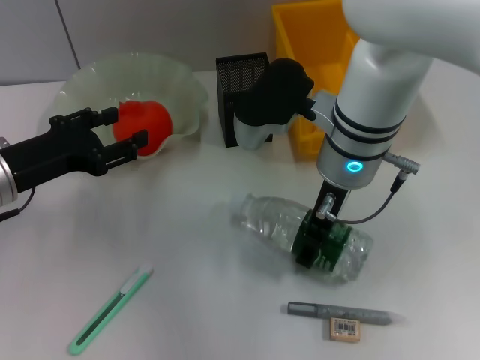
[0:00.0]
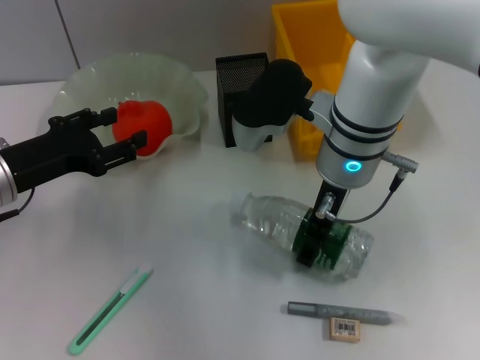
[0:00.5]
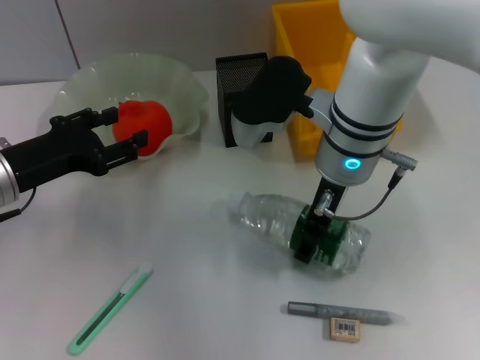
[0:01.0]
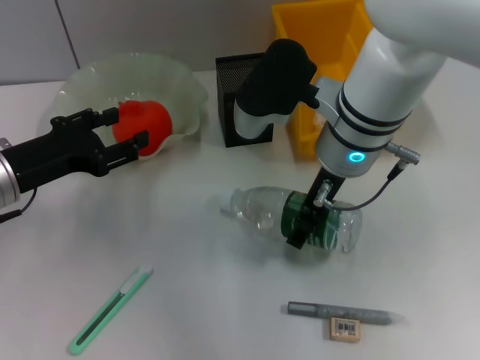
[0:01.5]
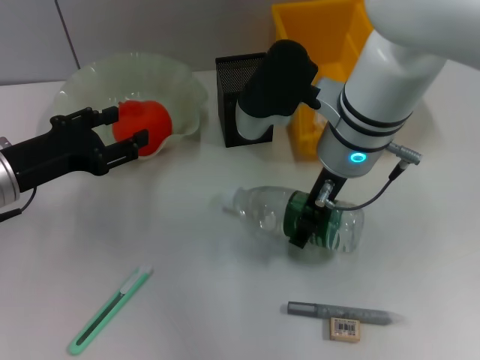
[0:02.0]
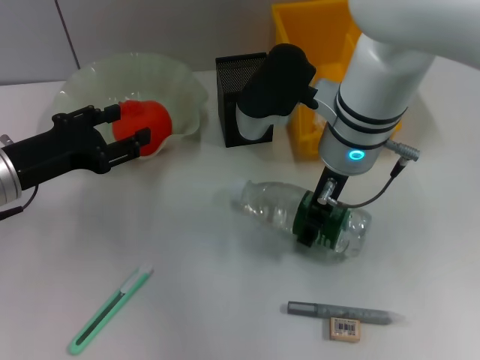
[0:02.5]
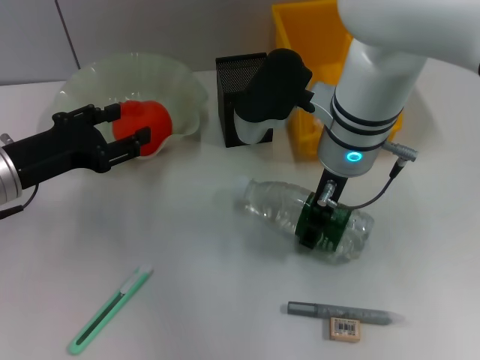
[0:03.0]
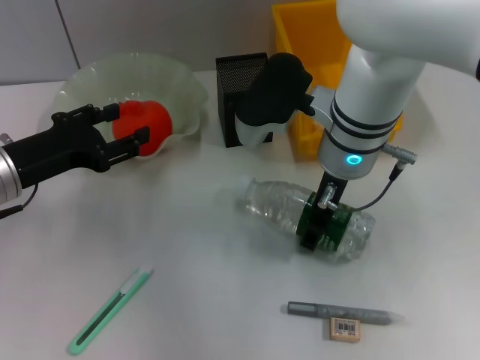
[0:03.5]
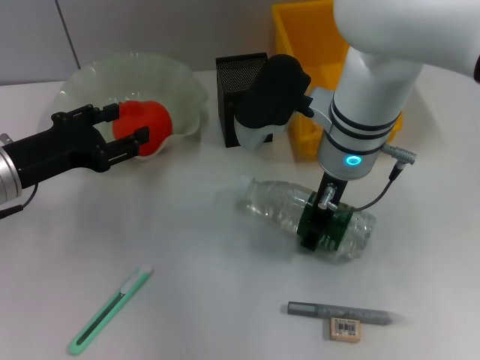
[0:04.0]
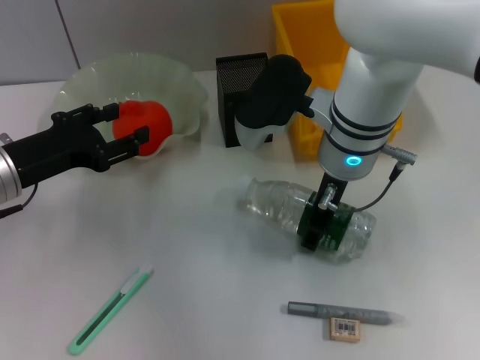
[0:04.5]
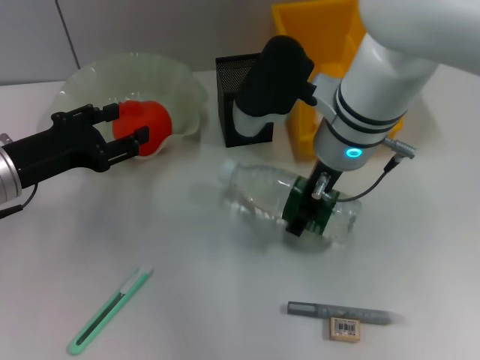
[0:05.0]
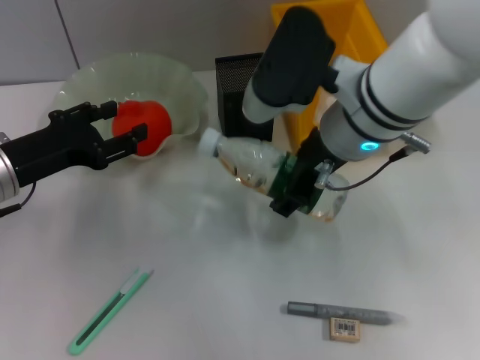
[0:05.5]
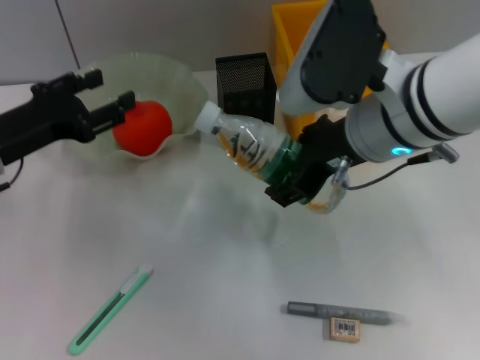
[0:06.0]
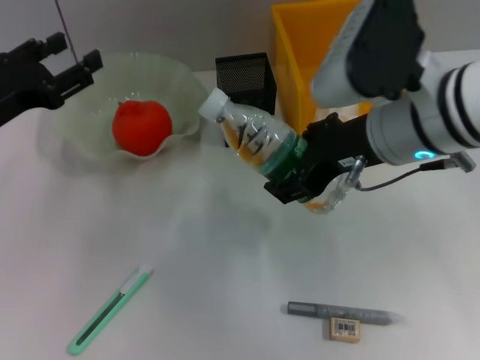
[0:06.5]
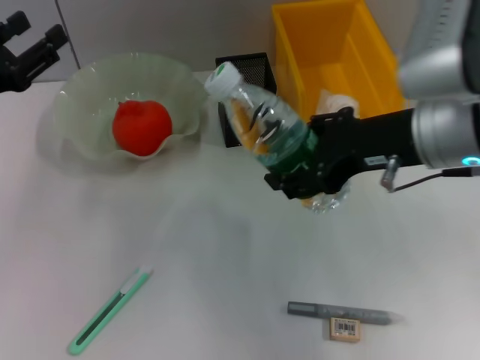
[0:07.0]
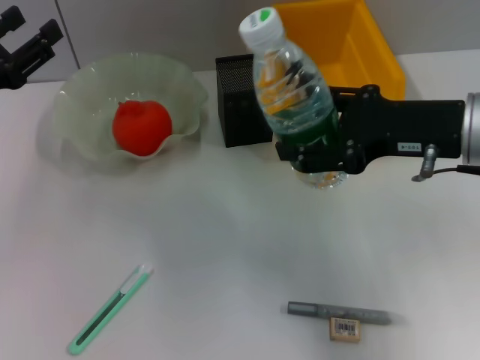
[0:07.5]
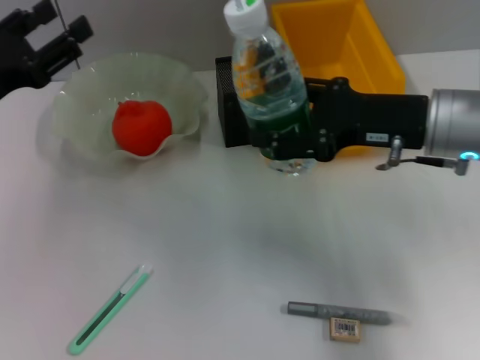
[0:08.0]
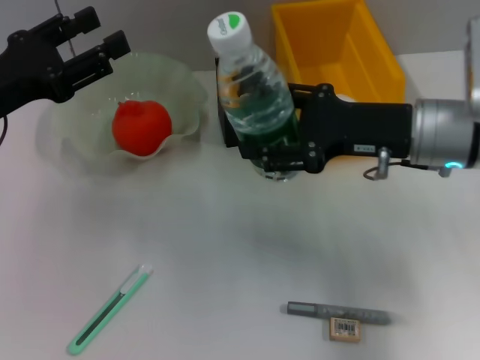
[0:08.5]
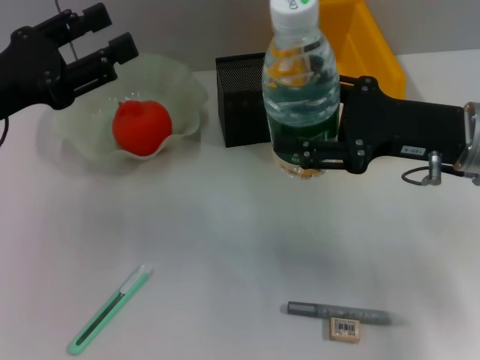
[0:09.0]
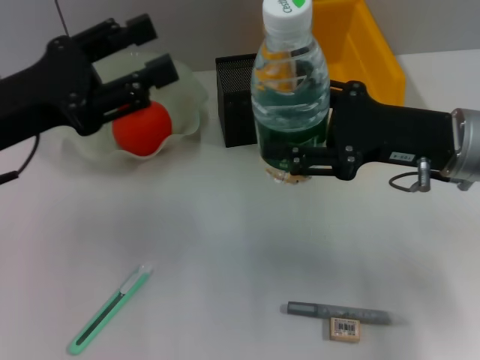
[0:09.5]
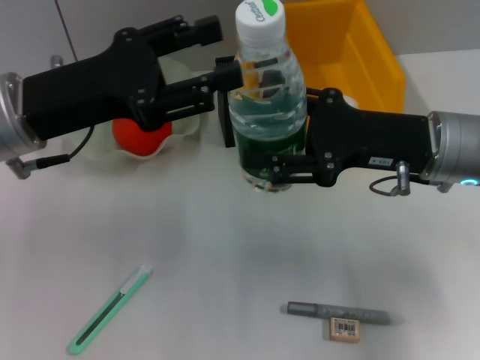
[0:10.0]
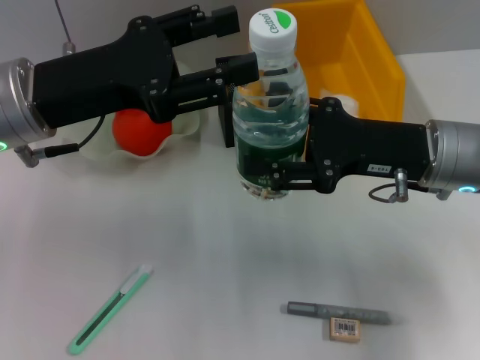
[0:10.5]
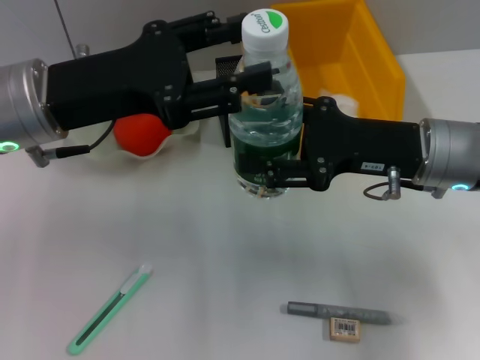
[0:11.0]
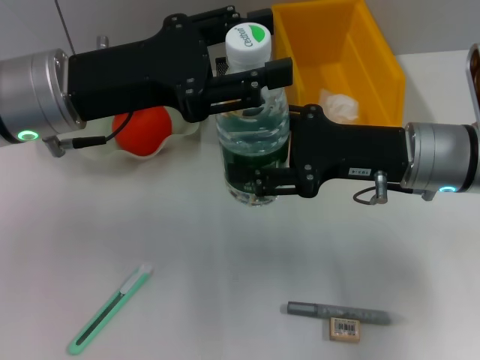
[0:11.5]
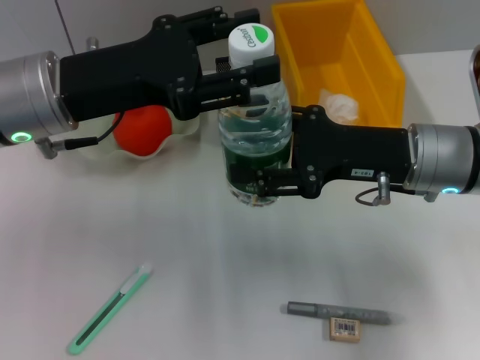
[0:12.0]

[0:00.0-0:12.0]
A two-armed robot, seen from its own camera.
Step, 0:00.0 to 0:04.0: Grab the water bottle with the right hand.
0:00.0 to 0:04.0: The grippers make only small movements.
0:04.0 to 0:06.0: The right gripper travels upward and backward by roughly 10 cm.
0:06.0 to 0:08.0: The right gripper goes about 10 cm to the right.
0:08.0 to 0:10.0: The left gripper travels to the right by about 10 cm.
0:10.0 to 0:12.0: The grippers make only small movements.

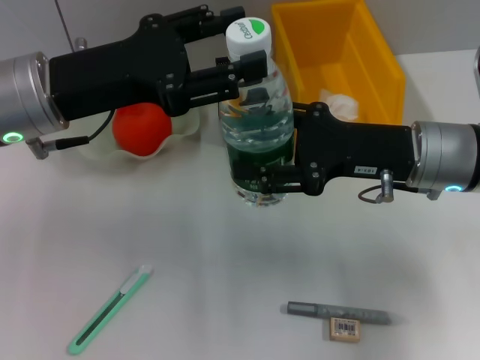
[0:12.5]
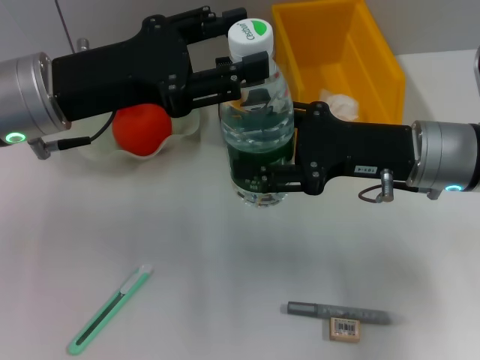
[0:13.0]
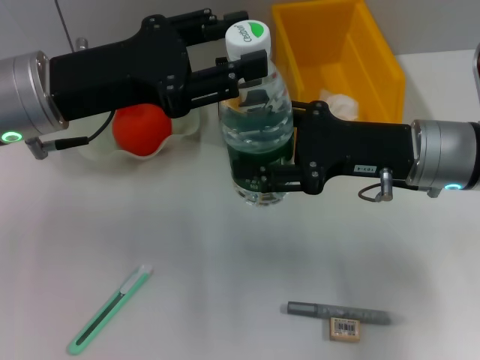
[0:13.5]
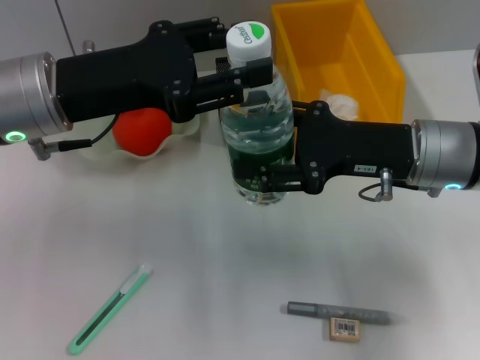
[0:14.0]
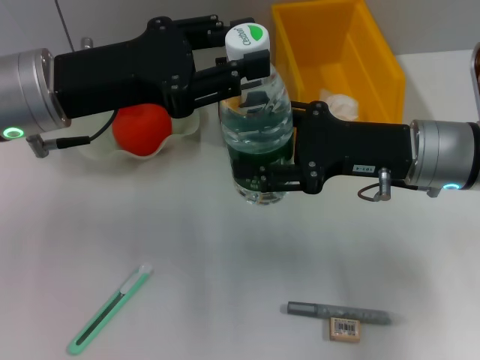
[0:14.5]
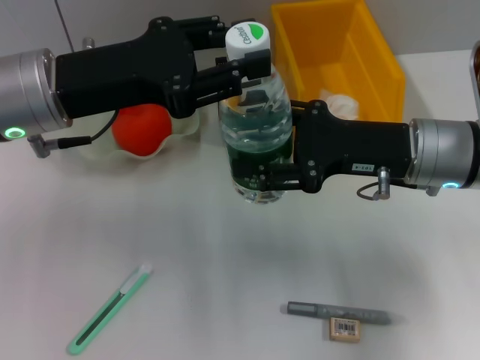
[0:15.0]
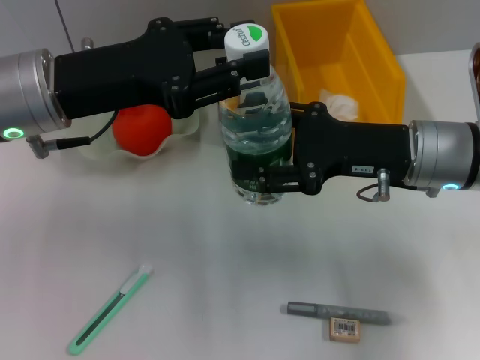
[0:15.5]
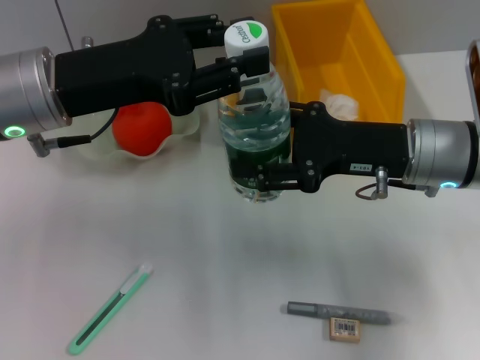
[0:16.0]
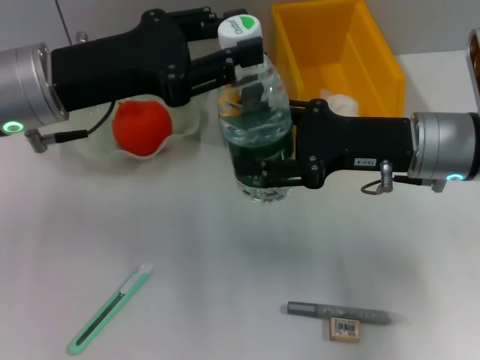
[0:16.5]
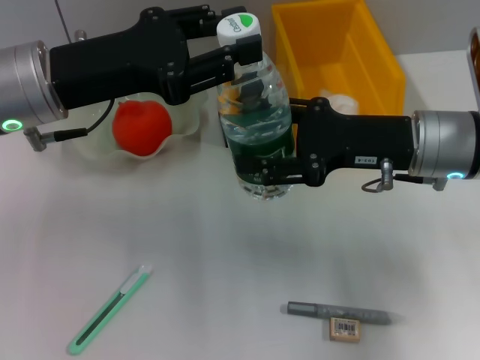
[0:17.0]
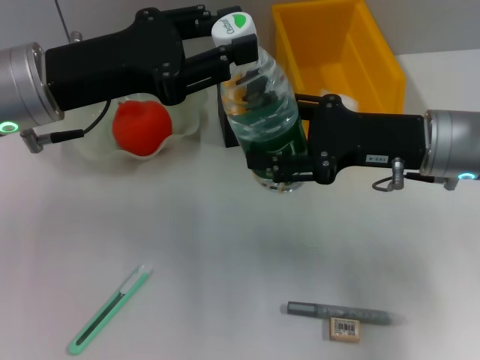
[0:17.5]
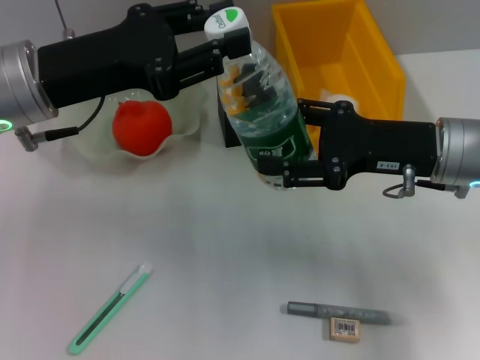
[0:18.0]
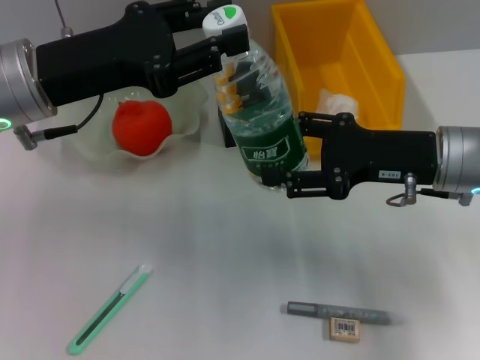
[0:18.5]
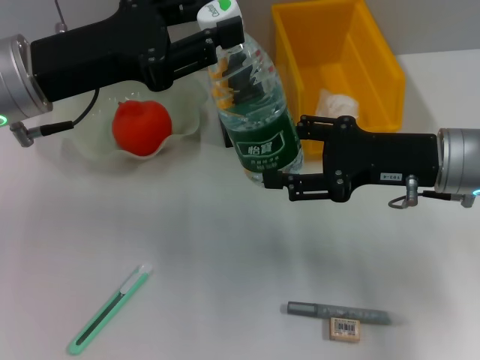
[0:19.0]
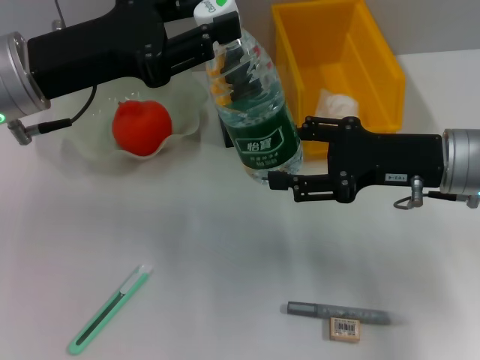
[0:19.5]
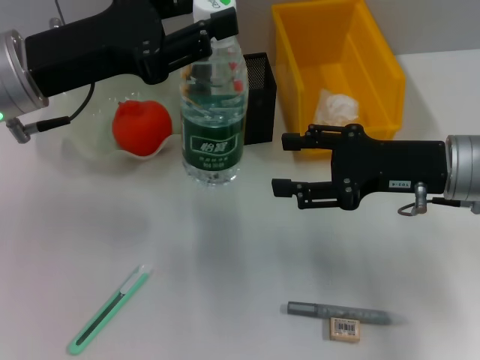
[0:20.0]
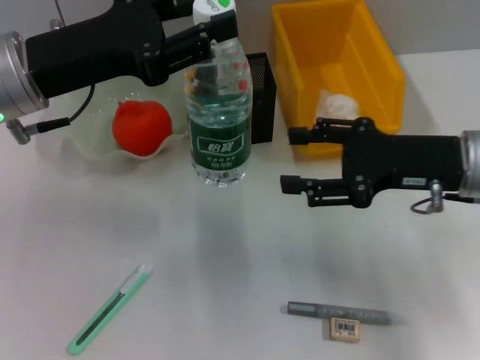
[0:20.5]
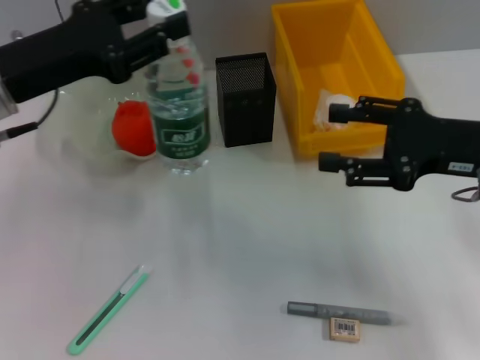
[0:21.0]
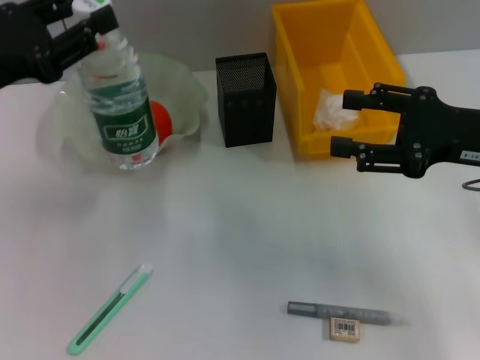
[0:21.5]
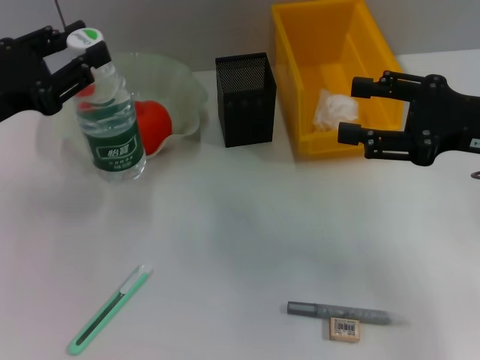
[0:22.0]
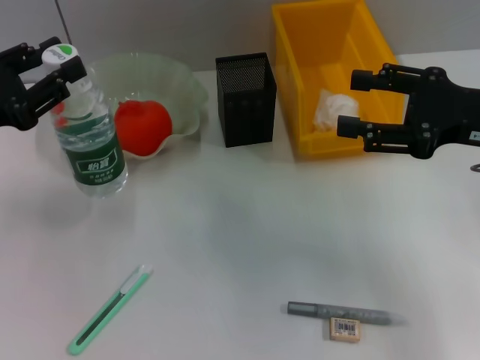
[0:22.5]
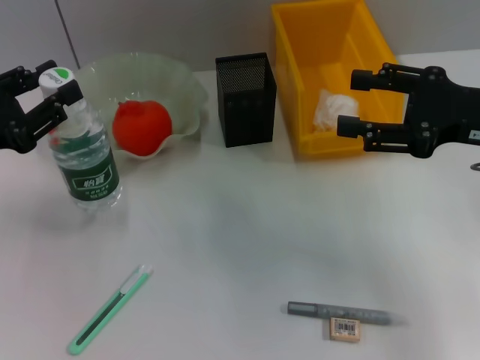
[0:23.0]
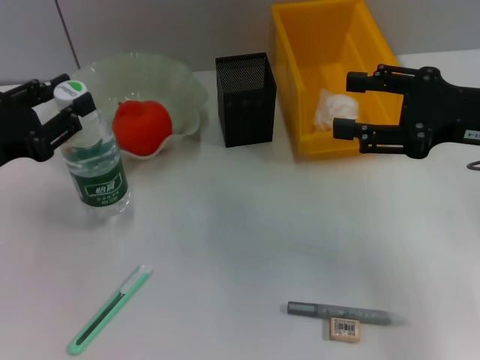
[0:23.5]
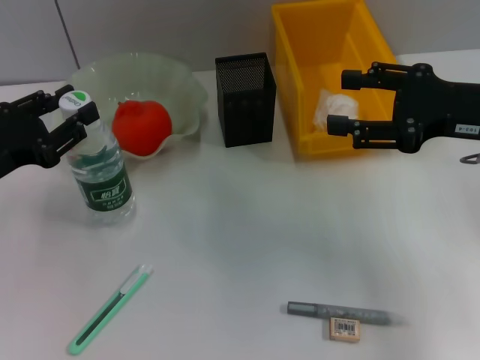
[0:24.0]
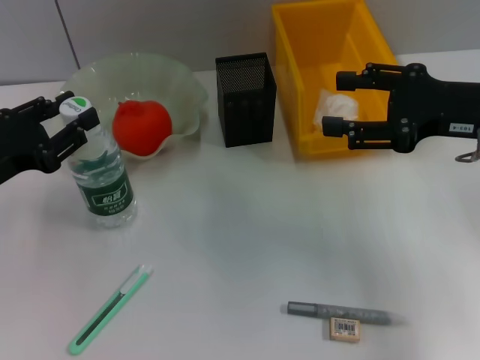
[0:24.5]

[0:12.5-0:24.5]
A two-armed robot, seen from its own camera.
Step, 0:12.5 to 0:20.5: Pass the water bottle from the right hand to the left hand.
0:12.5 to 0:16.5: Both grippers stay about where they are.
0:16.5 to 0:20.5: The grippers make only small movements.
0:20.5 to 0:22.5: The right gripper changes place by approximately 5 cm. Meanwhile the left gripper travels to the left and downward by approximately 10 cm.
0:22.5 to 0:24.5: There are only small adjustments of the grippers.

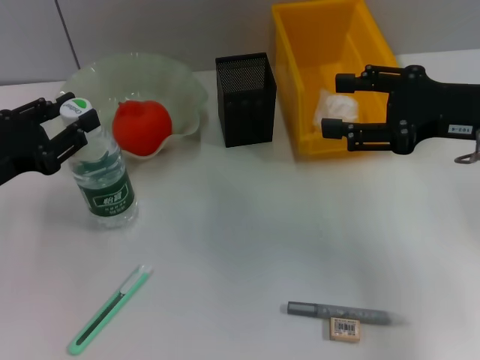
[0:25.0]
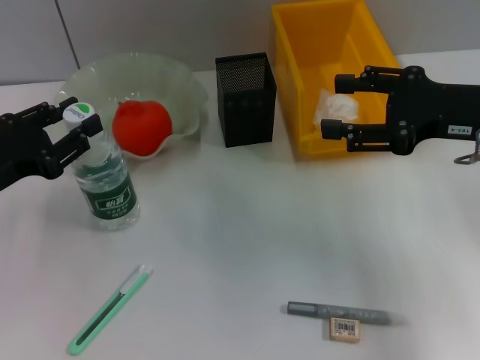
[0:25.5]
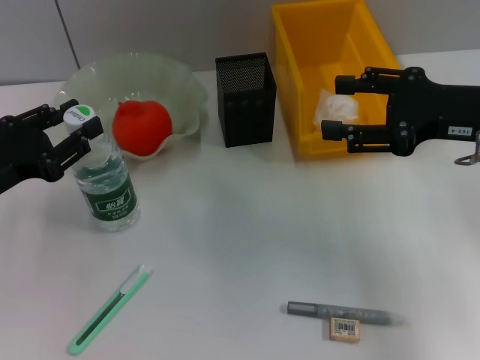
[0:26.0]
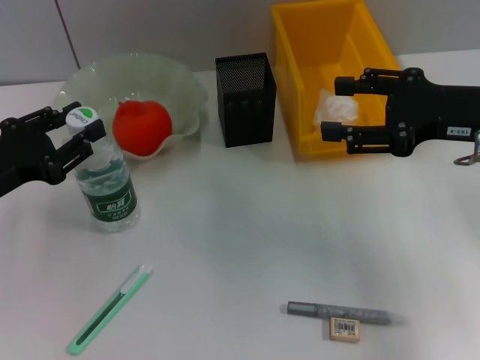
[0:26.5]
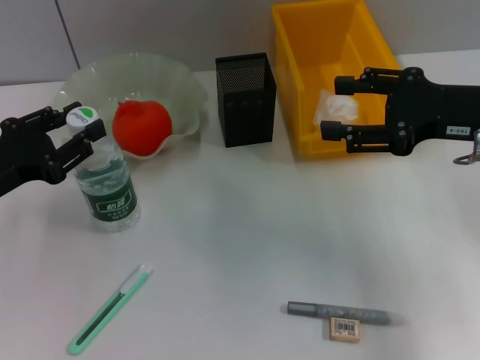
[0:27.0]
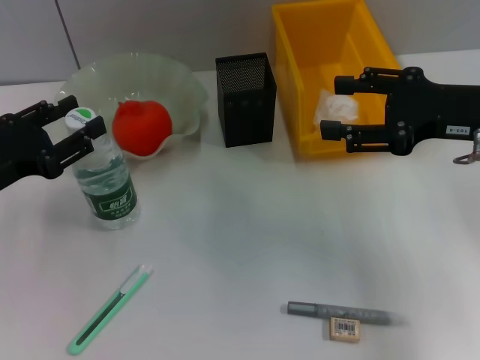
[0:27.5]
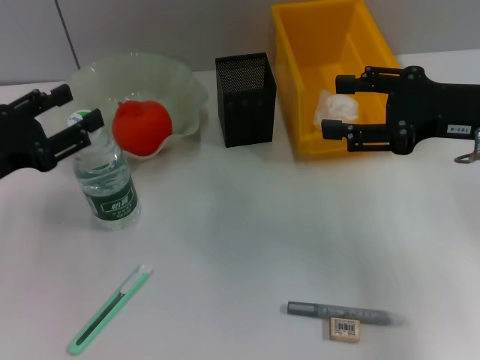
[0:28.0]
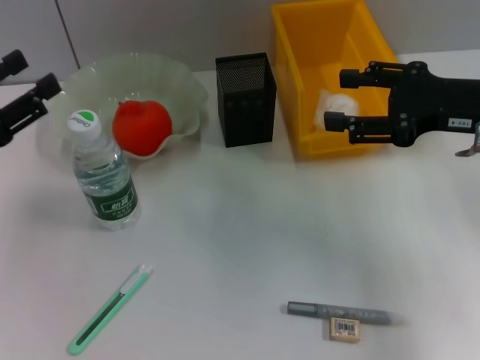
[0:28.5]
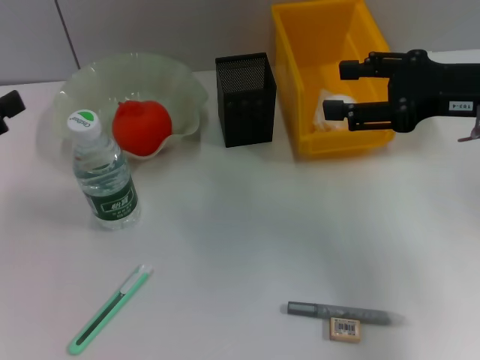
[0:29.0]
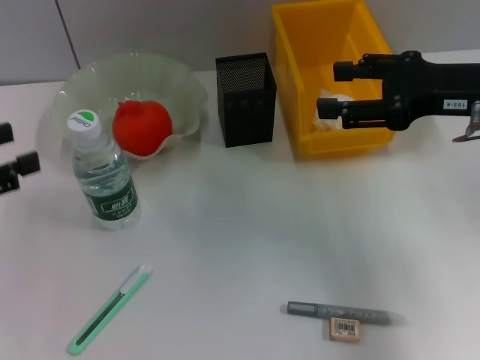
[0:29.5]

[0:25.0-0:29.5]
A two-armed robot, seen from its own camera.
Step, 0:25.0 to 0:28.0: Place the water bottle on the table with the left hand.
0:25.0 to 0:27.0: Neither gripper changes place.
0:27.0 to 0:29.5: The left gripper goes roughly 10 cm upward and to the left, and opens.
